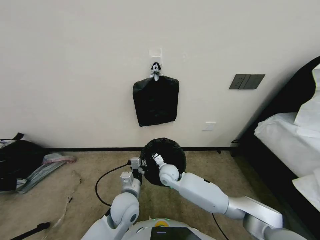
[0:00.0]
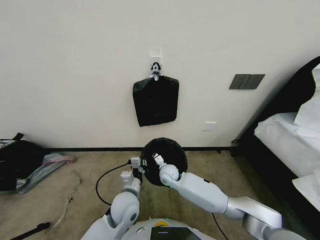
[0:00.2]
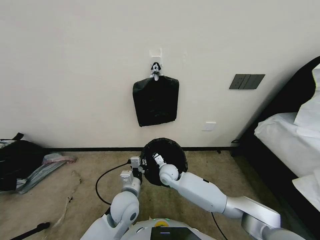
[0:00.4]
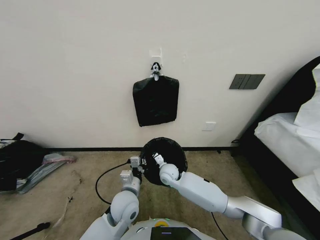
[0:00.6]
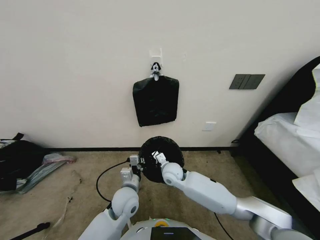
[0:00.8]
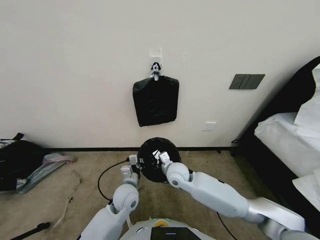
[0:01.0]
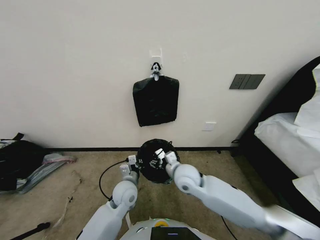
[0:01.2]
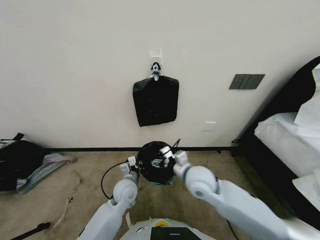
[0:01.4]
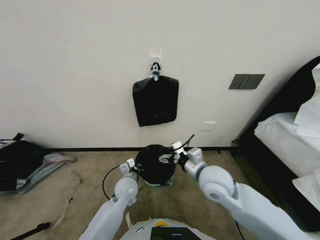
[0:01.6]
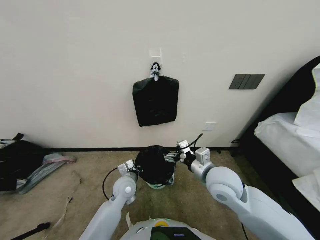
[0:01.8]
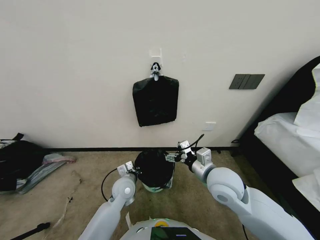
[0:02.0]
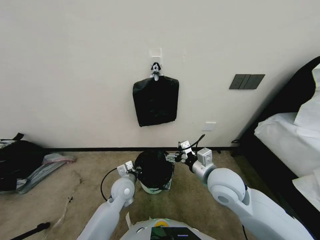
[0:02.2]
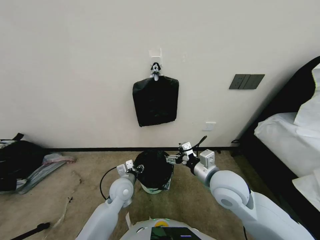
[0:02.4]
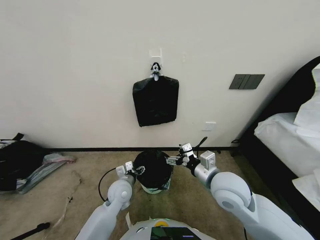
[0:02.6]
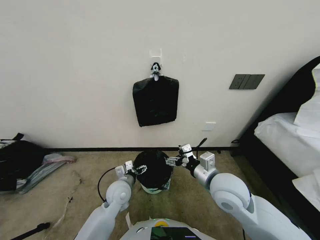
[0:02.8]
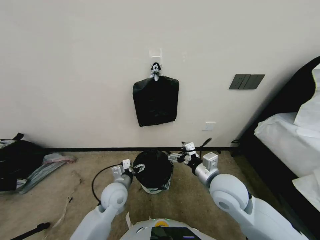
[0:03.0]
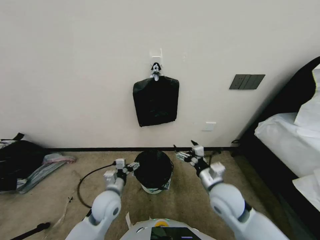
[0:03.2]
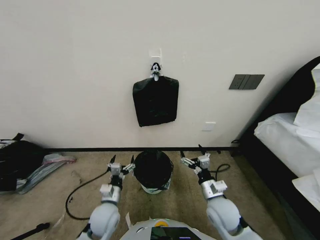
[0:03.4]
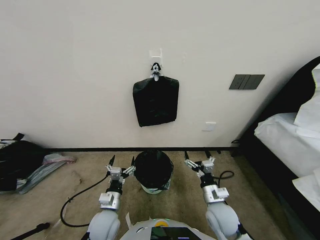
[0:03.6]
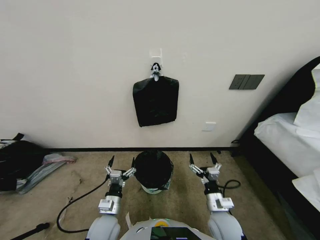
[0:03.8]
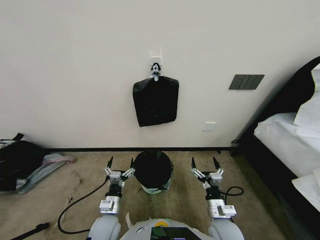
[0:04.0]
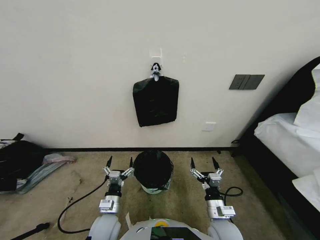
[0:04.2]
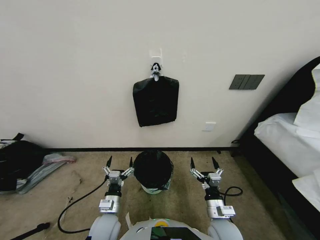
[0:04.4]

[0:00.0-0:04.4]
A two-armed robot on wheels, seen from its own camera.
Task of the whole recording: Place a trash bag onto the trash bin.
0:00.0 to 0:01.4: The left gripper goes approximately 5 cm forward. The right gripper heads upward, backward and to the right, covering roughly 15 cm, and opens.
0:01.4 to 0:03.0: The left gripper opens its fingers; the right gripper is displaced to the right, backward and upward by roughly 10 cm.
0:03.0 to 0:04.4: The left gripper moves backward and downward, about 10 cm; the right gripper heads downward and backward, covering roughly 20 cm.
